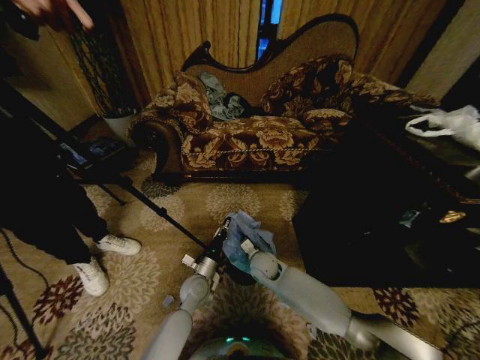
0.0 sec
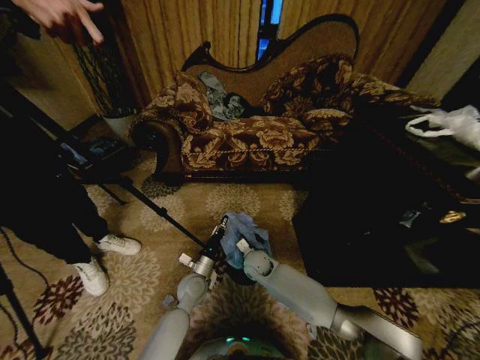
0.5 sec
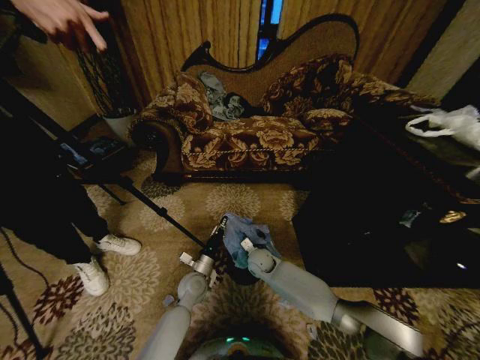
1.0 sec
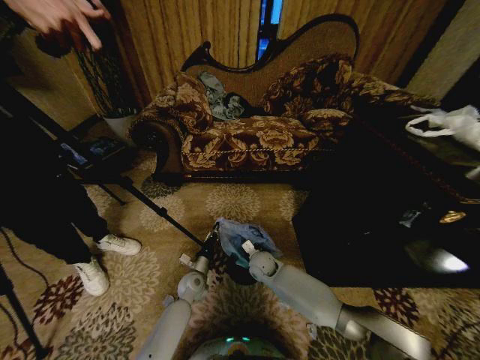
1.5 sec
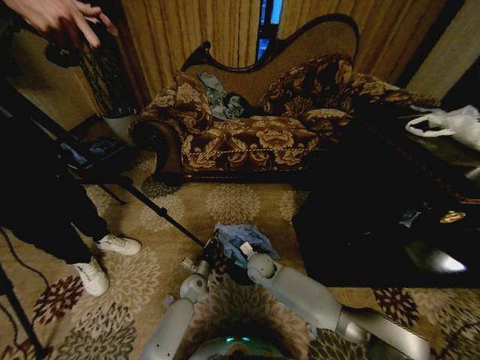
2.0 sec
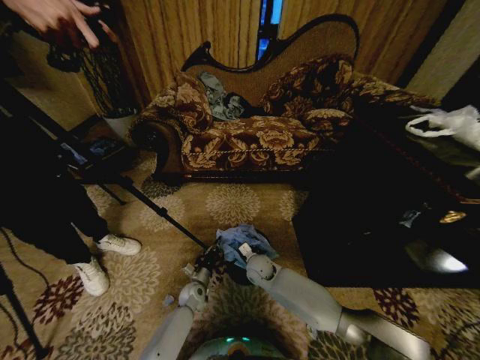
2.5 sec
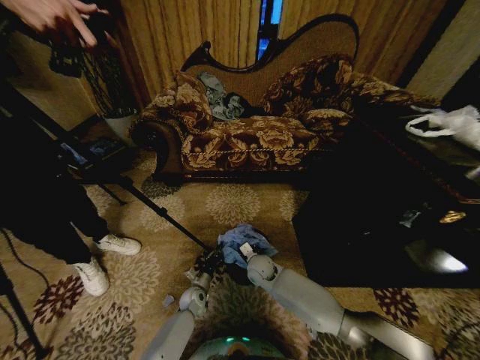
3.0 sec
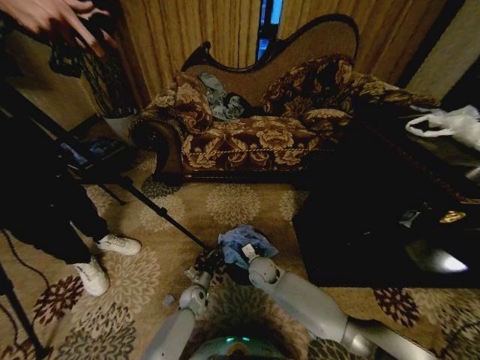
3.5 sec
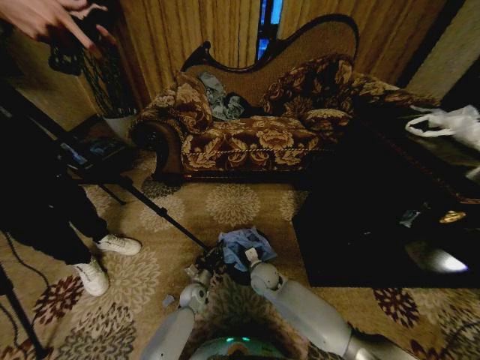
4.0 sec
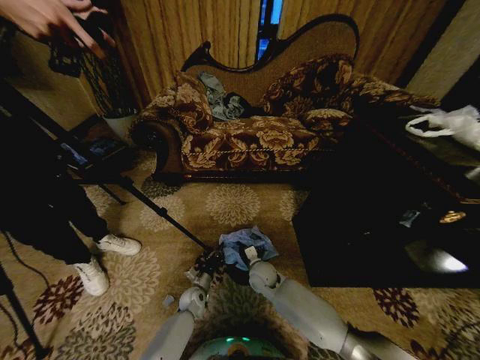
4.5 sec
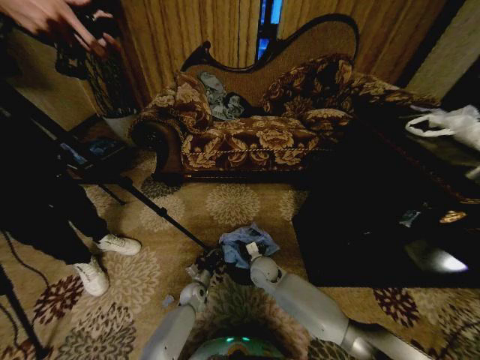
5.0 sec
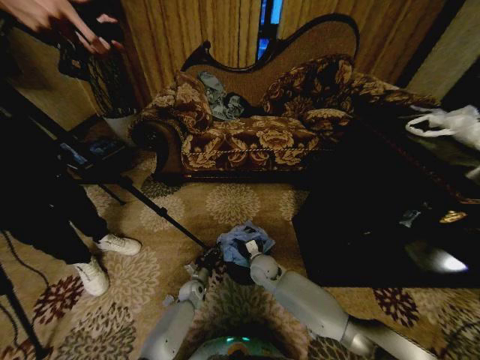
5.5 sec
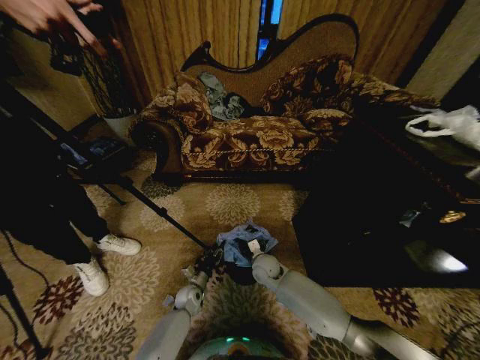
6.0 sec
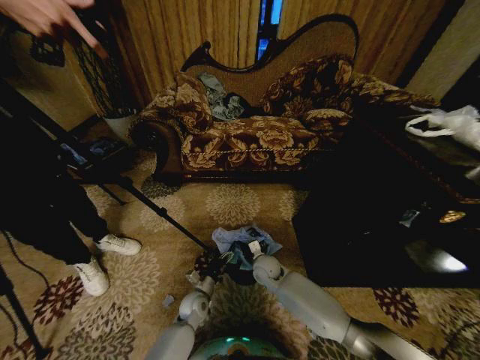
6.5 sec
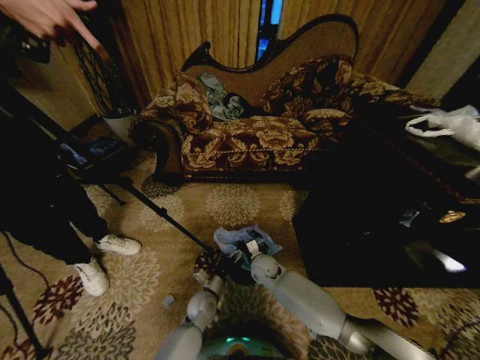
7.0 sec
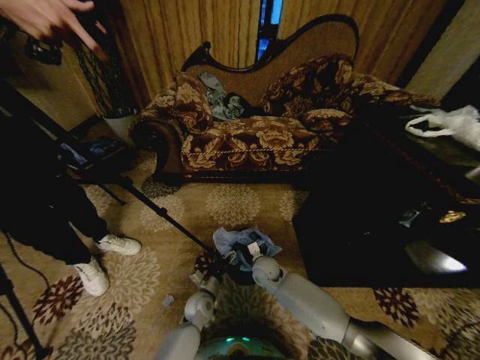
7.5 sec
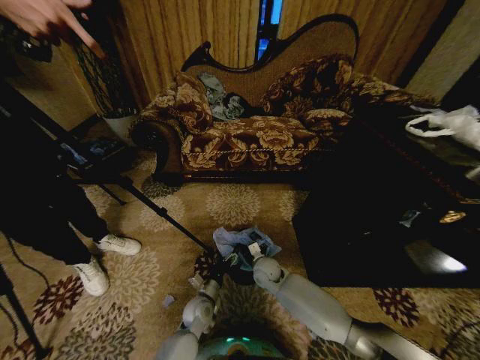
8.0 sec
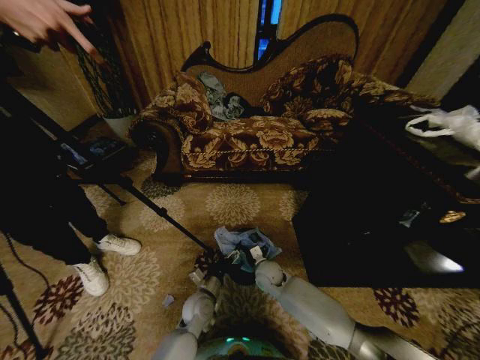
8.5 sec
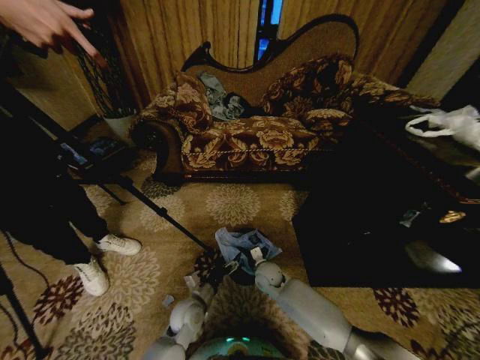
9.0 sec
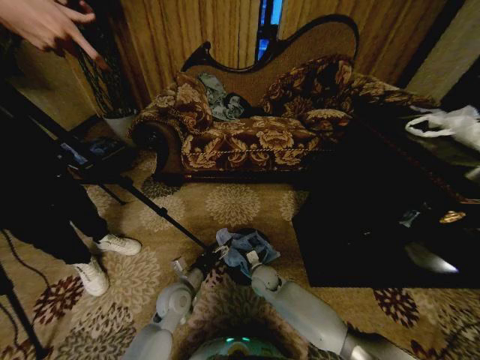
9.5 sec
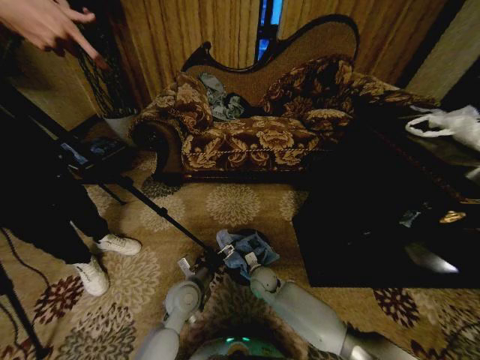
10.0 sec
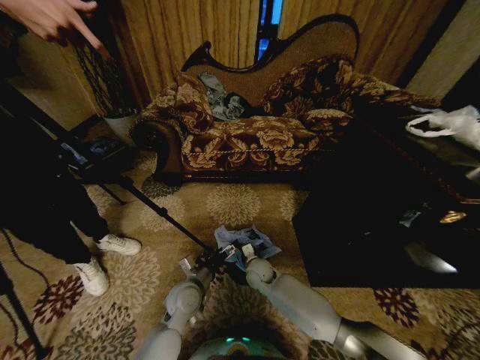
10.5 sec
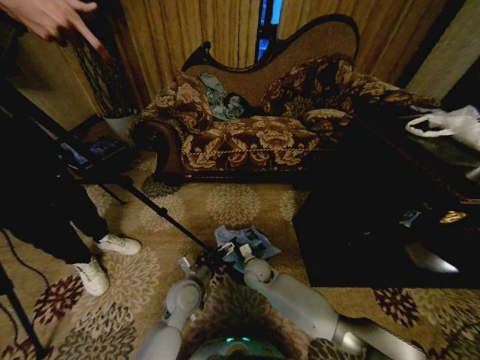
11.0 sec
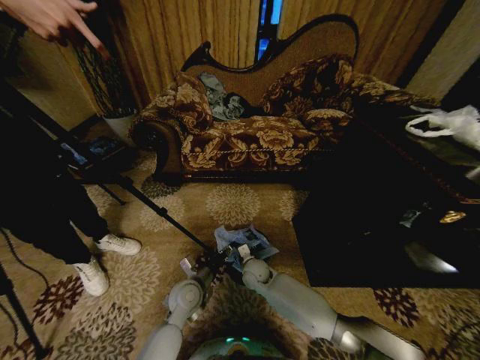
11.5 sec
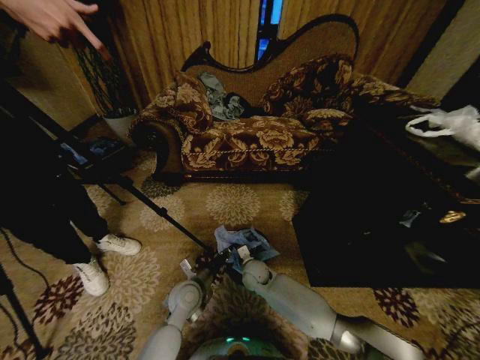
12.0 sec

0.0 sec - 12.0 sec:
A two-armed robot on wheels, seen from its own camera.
Task of the whole recording: Place a garbage bag over the trash bin.
0.0 sec - 2.0 sec: The left gripper goes approximately 10 cm downward.
2.0 sec - 4.0 sec: The right gripper opens up.
4.0 sec - 6.0 sec: The left gripper opens up.
6.0 sec - 8.0 sec: The left gripper shifts about 10 cm upward, to the right and backward, and opens.
8.0 sec - 10.0 sec: The left gripper heads upward, covering approximately 15 cm.
10.0 sec - 12.0 sec: The left gripper closes.

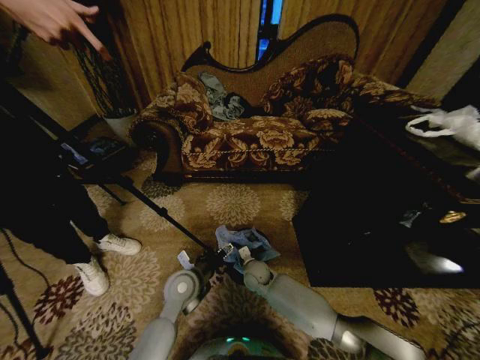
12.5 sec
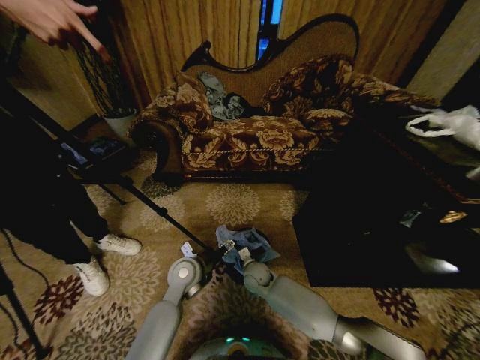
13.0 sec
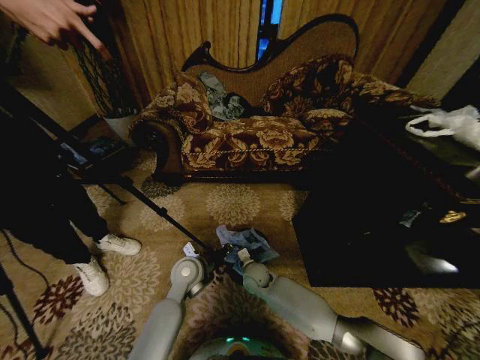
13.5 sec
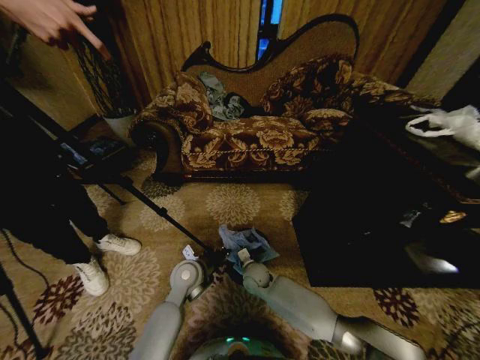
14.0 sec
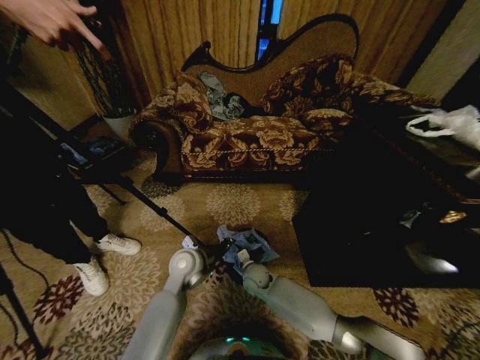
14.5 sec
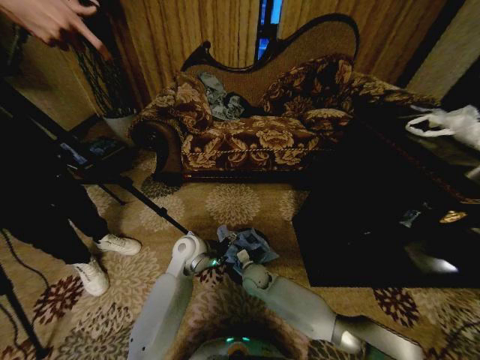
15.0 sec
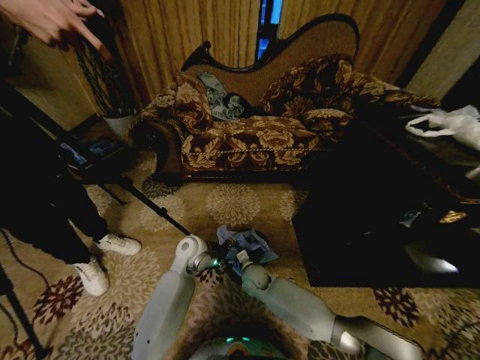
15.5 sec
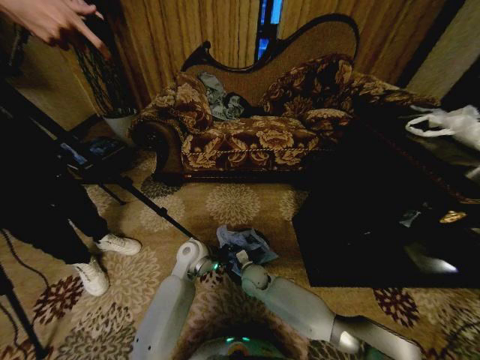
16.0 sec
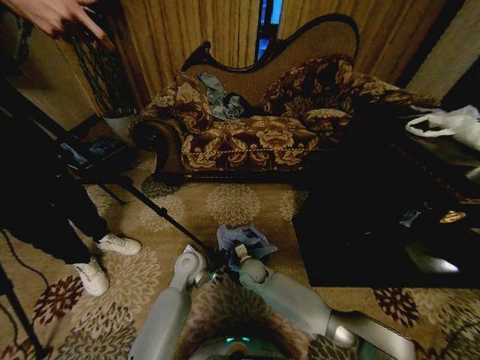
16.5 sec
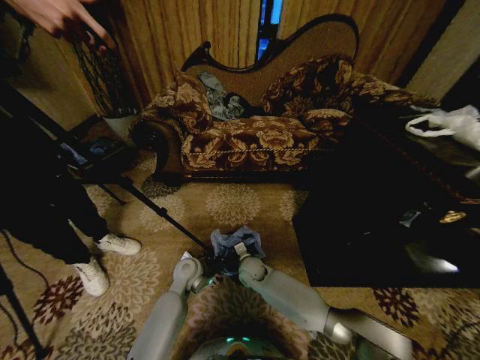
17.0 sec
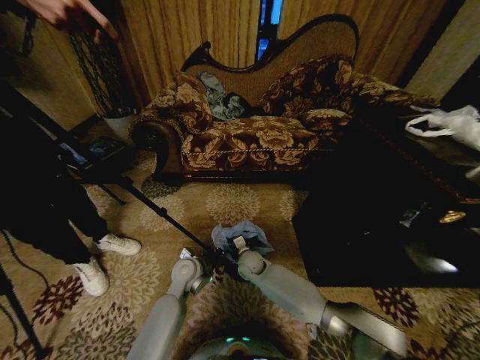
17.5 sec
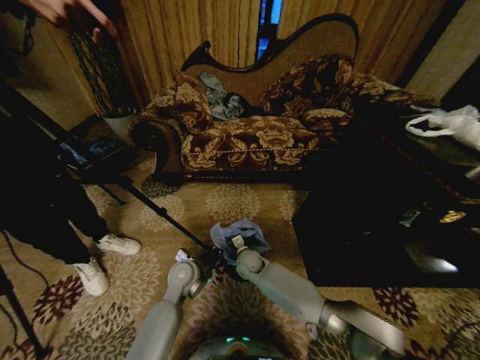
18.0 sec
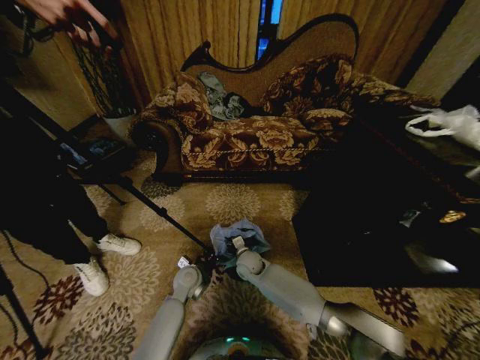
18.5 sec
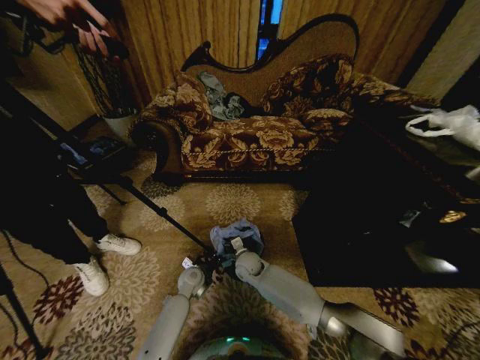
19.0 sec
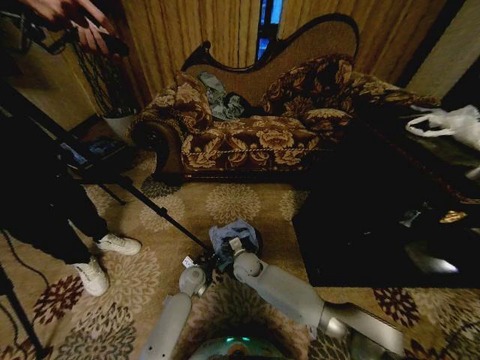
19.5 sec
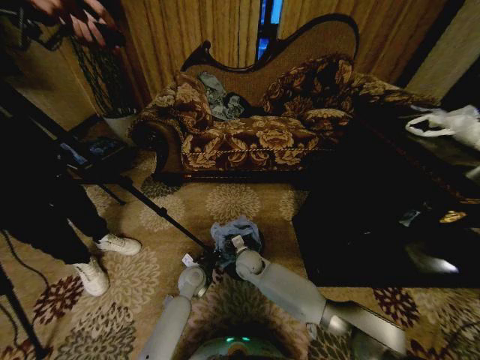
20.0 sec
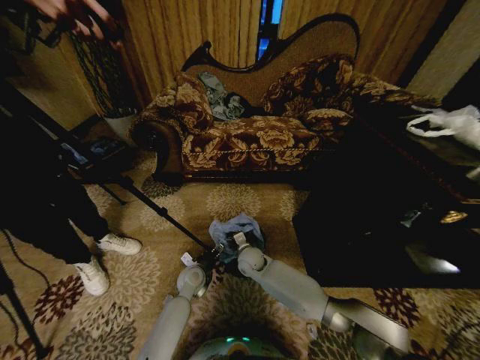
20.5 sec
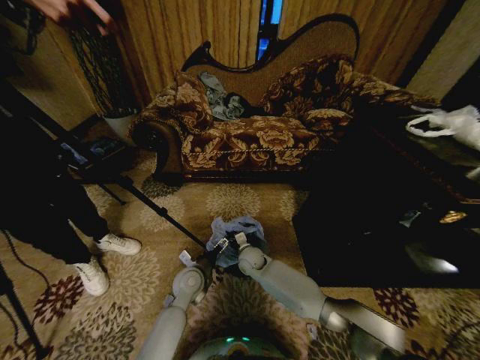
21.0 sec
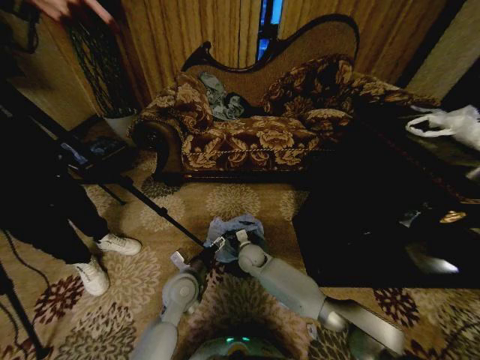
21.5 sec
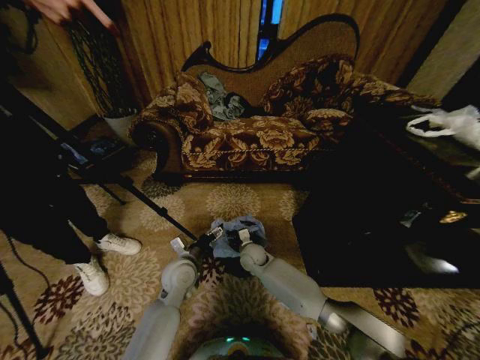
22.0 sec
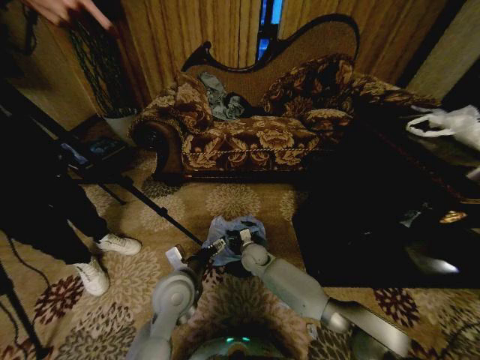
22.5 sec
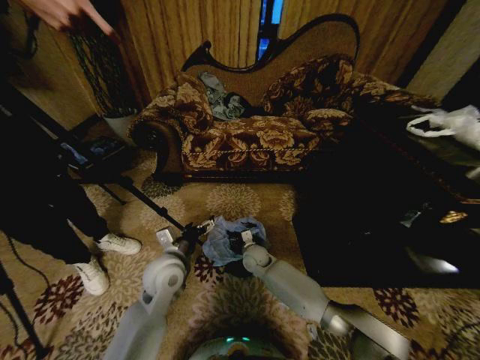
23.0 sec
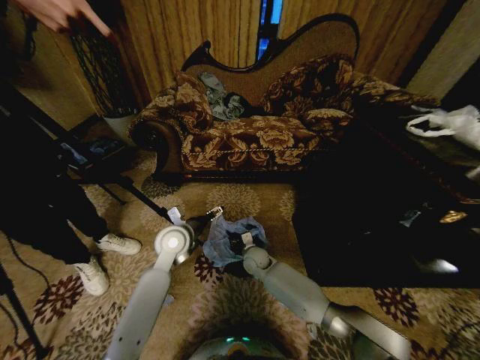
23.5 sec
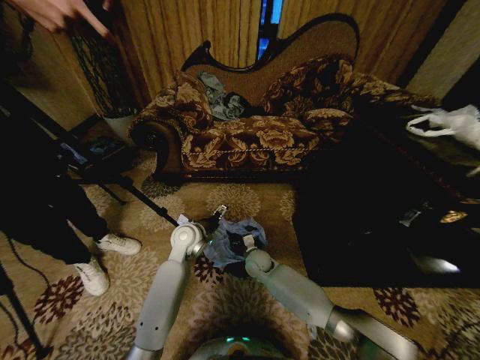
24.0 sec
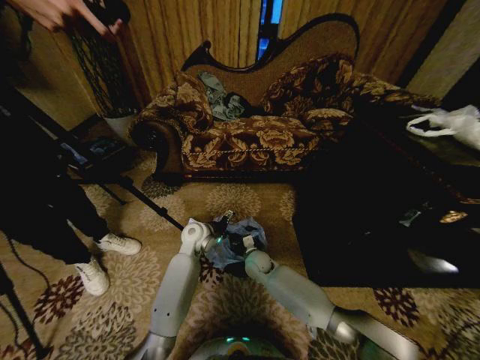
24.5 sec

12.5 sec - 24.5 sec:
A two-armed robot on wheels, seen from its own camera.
Task of the whole recording: Place a garbage bag over the trash bin.
12.5 sec - 14.5 sec: The left gripper shifts by approximately 5 cm, and closes its fingers.
14.5 sec - 16.5 sec: The left gripper opens, then closes again.
16.5 sec - 18.5 sec: The left gripper shifts about 5 cm downward.
18.5 sec - 20.5 sec: The left gripper opens up.
20.5 sec - 22.5 sec: The left gripper is displaced upward and backward by about 20 cm.
22.5 sec - 24.5 sec: The left gripper is displaced forward by roughly 20 cm.

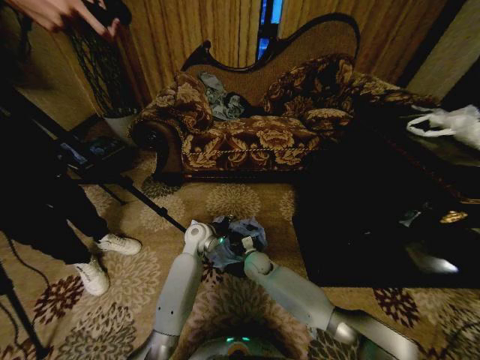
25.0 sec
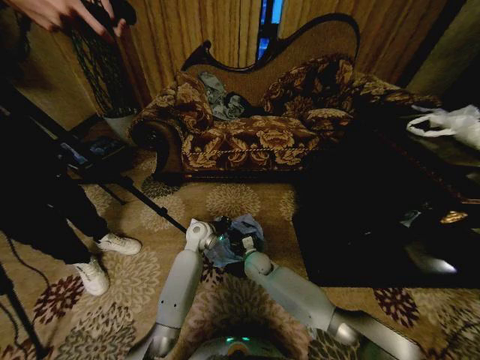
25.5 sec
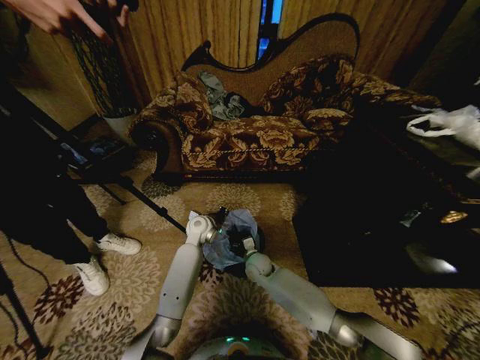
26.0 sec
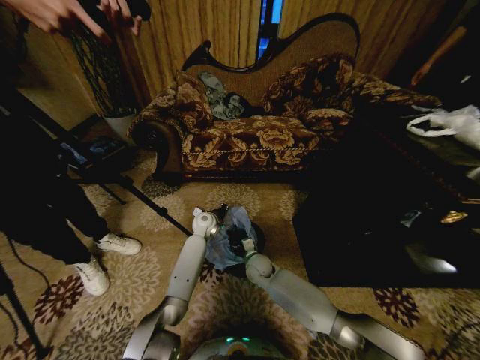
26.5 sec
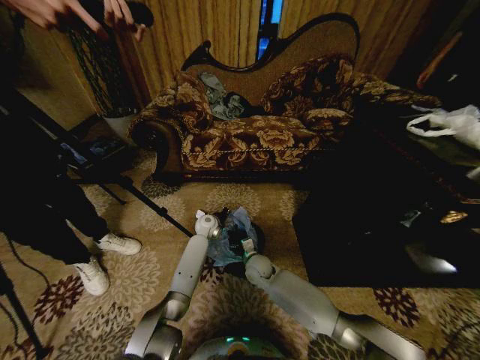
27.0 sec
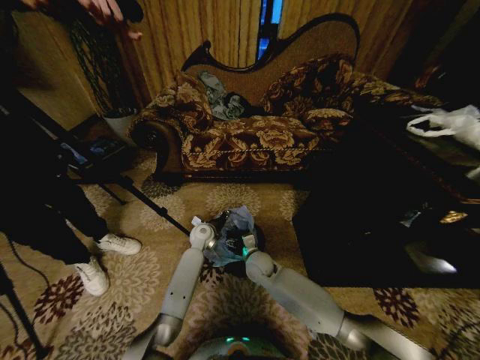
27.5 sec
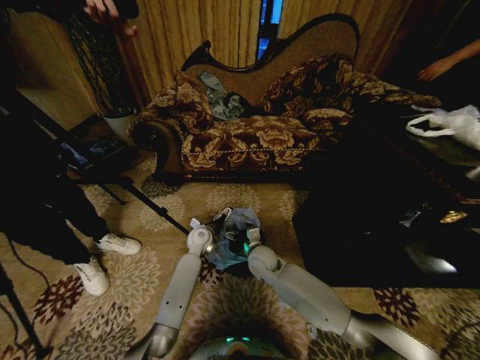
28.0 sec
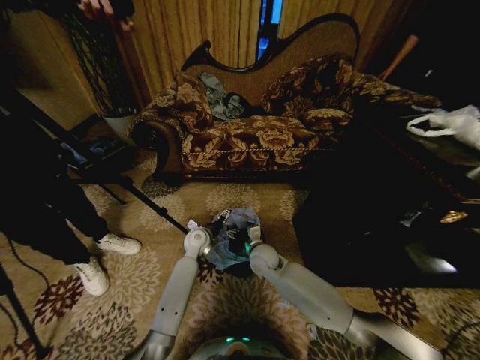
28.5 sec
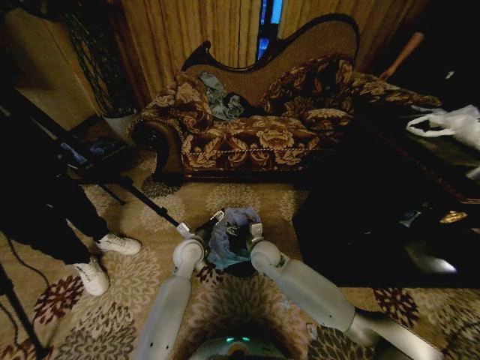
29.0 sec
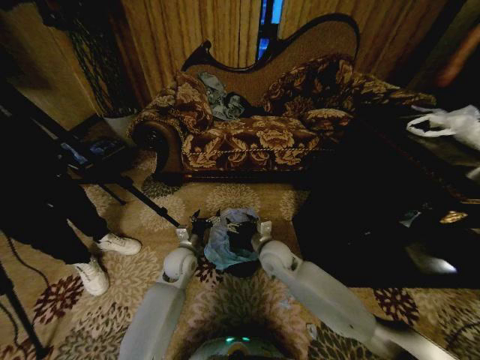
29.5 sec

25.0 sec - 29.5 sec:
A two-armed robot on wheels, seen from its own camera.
Task of the whole recording: Place a garbage bag over the trash bin.
25.0 sec - 27.0 sec: The left gripper is displaced forward and downward by approximately 10 cm, and closes up.
27.0 sec - 29.5 sec: The right gripper is displaced upward by about 10 cm; the left gripper shifts approximately 15 cm backward, and opens.
